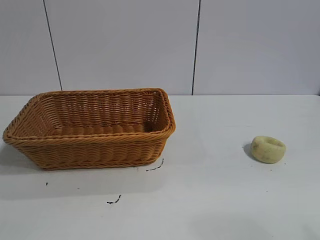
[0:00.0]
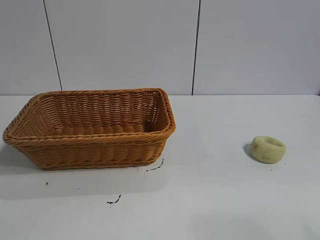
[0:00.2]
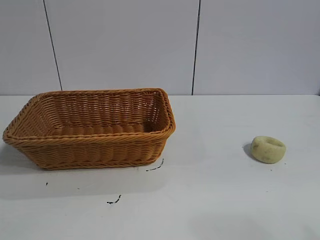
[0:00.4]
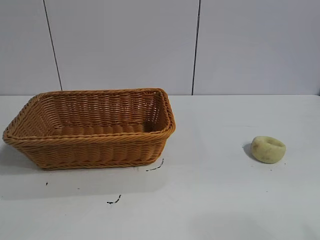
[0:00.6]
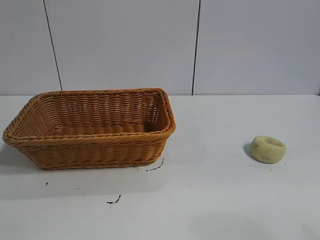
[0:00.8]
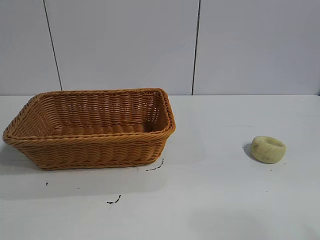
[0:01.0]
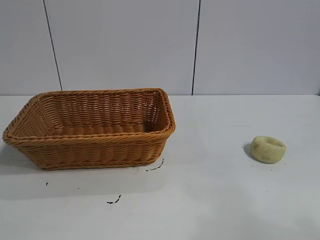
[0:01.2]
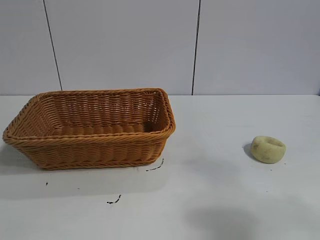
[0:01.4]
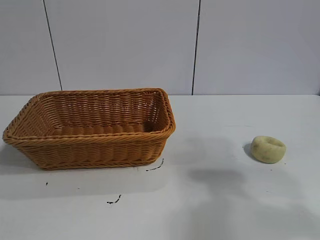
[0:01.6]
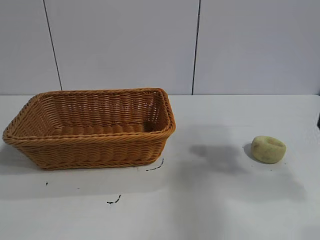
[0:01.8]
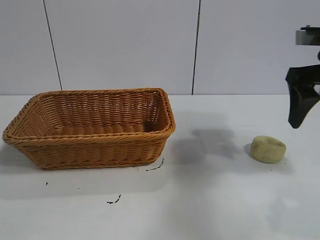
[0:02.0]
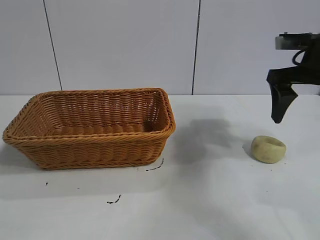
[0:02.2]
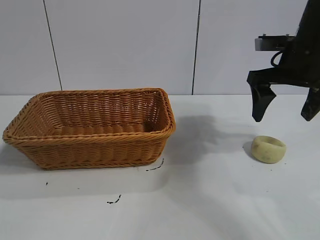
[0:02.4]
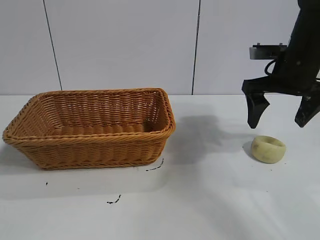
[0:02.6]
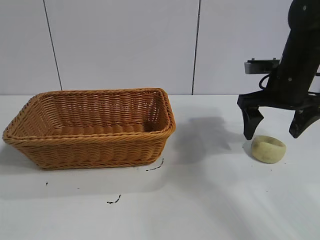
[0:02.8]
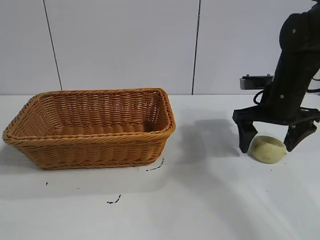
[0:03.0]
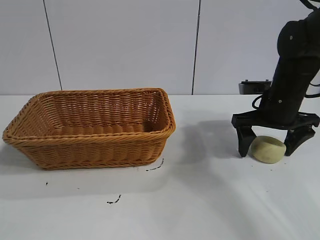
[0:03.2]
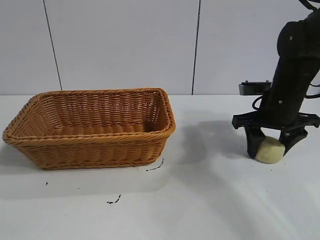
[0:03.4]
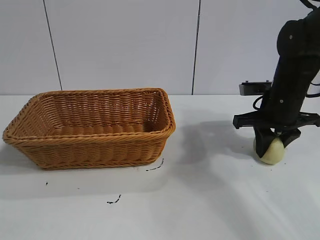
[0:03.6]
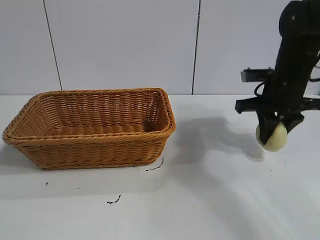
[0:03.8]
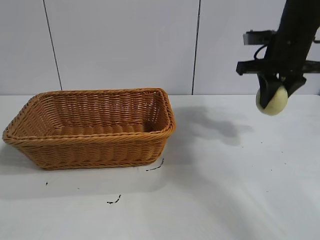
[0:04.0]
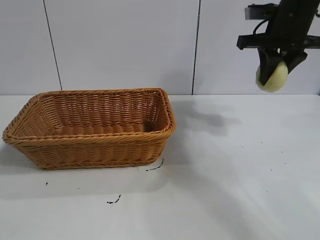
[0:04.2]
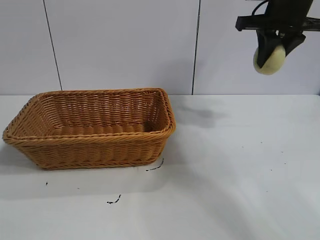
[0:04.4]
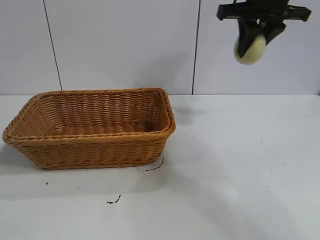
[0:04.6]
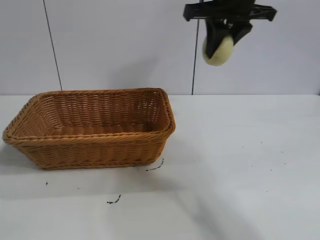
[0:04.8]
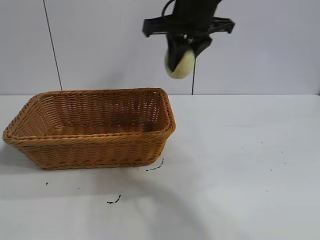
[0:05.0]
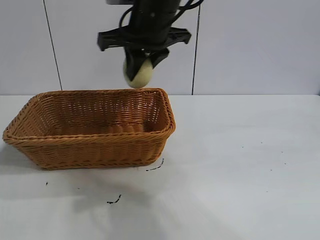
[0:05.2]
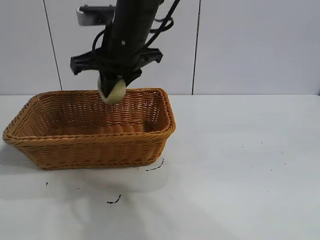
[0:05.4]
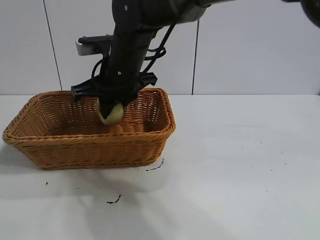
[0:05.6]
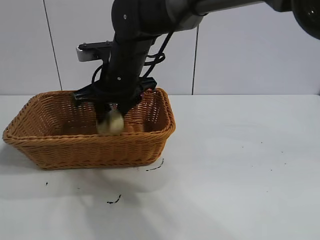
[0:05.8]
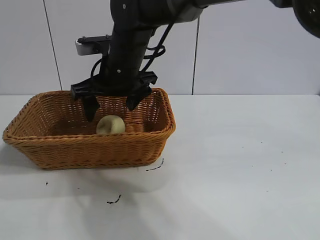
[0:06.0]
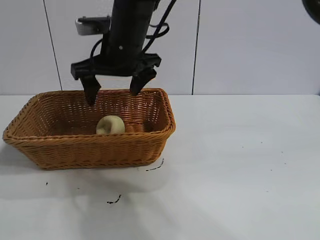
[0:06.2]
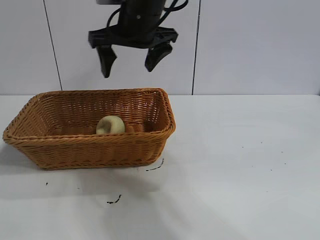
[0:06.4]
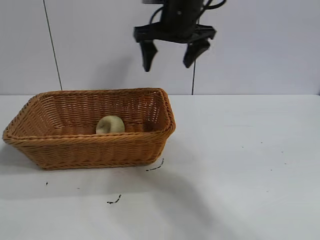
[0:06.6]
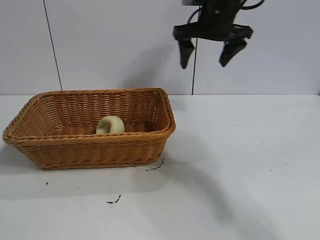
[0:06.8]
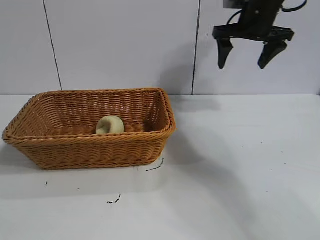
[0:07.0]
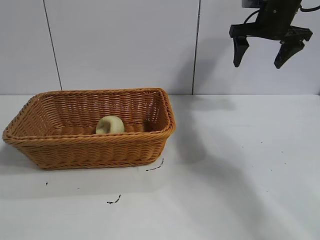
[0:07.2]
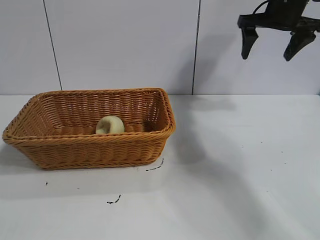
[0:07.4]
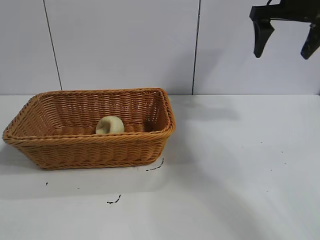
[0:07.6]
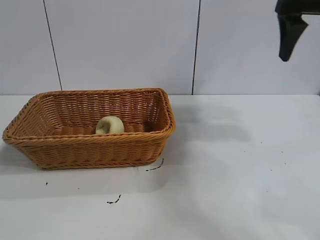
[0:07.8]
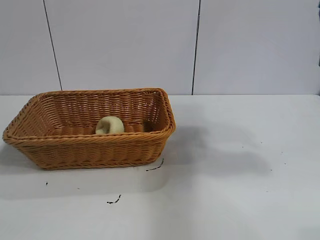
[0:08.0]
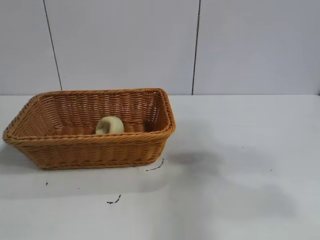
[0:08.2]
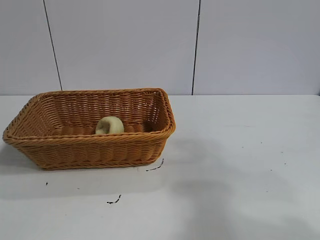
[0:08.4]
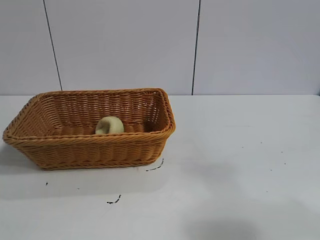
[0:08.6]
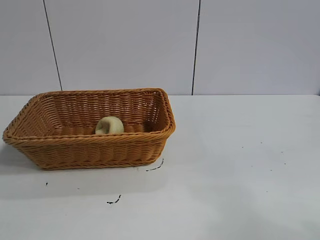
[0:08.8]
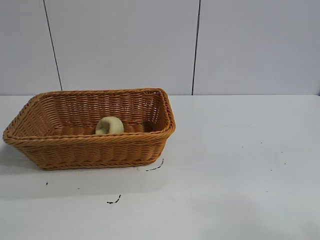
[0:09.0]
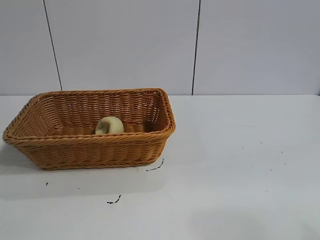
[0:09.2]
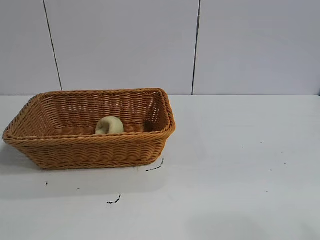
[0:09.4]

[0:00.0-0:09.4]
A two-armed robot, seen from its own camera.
Task of the whole recording: pick up the egg yolk pastry and put it into the basket.
Step, 0:01.0 to 0:03.6: Grasp egg yolk pastry with right gripper.
Step, 0:03.8 to 0:06.0: Place the egg yolk pastry in the basket with right gripper.
